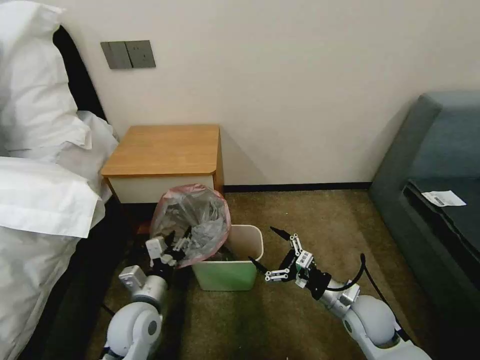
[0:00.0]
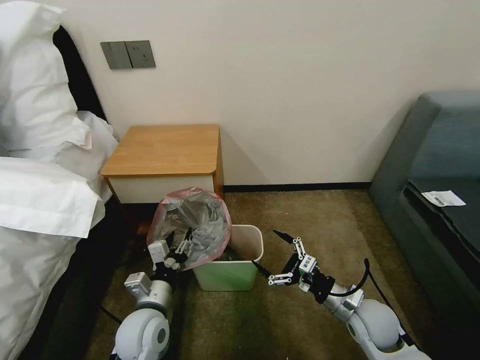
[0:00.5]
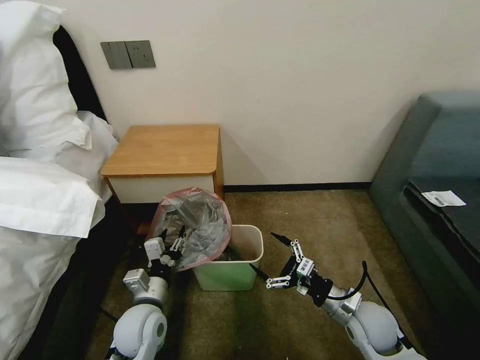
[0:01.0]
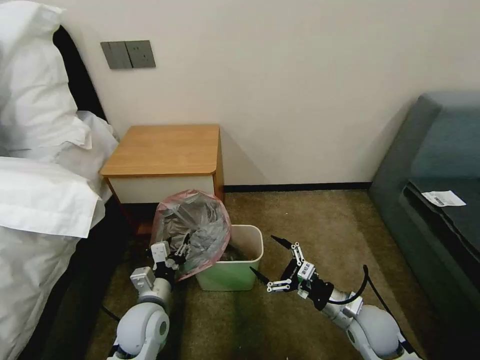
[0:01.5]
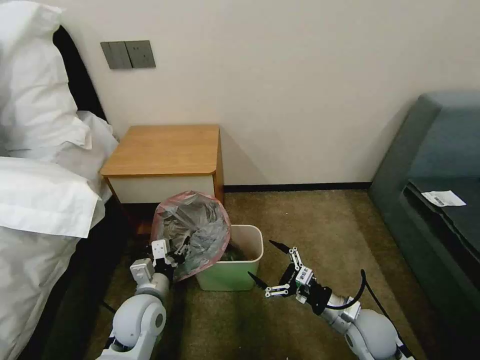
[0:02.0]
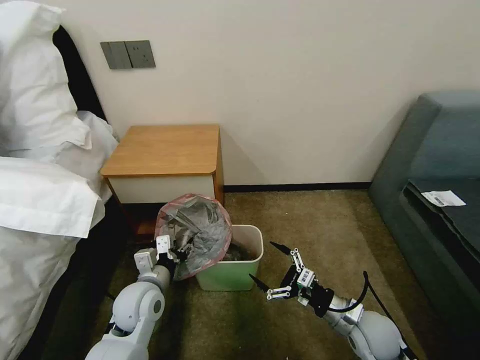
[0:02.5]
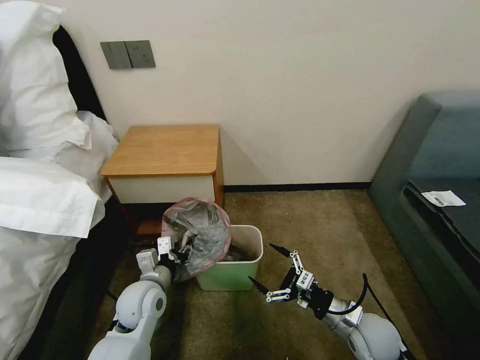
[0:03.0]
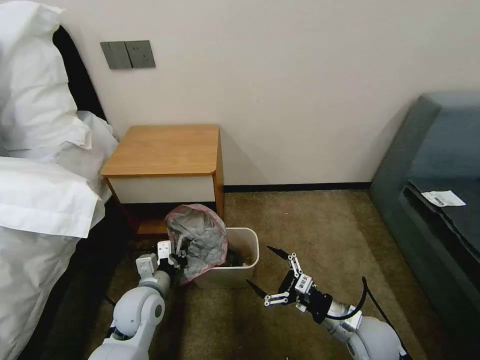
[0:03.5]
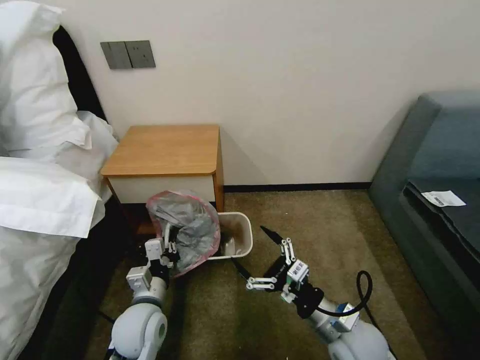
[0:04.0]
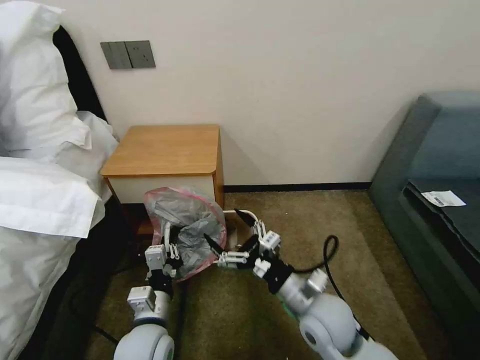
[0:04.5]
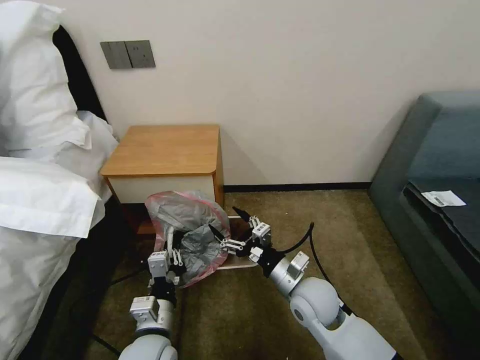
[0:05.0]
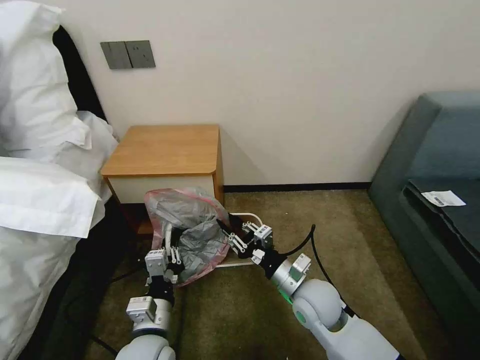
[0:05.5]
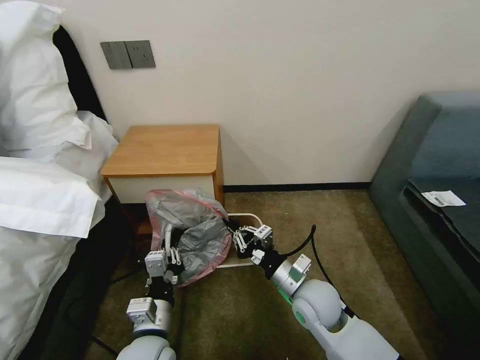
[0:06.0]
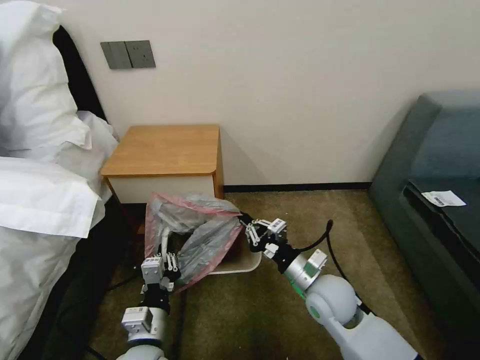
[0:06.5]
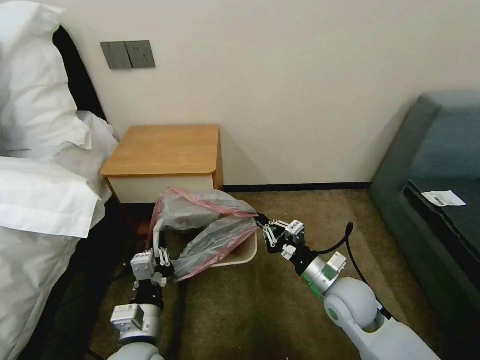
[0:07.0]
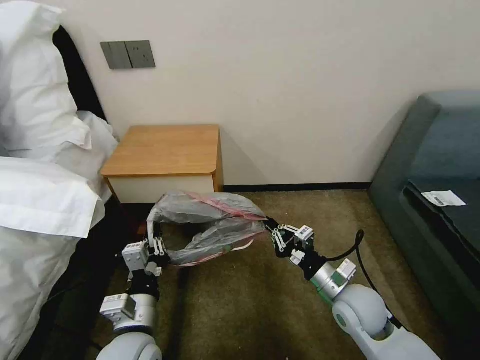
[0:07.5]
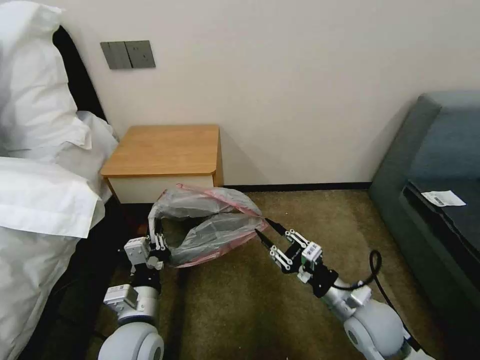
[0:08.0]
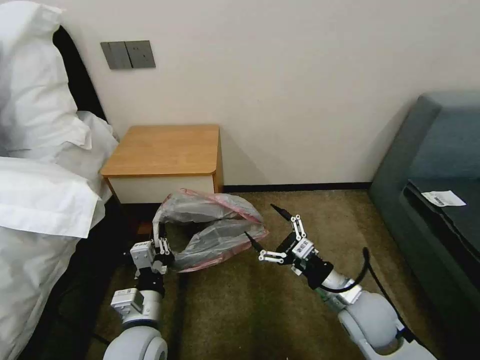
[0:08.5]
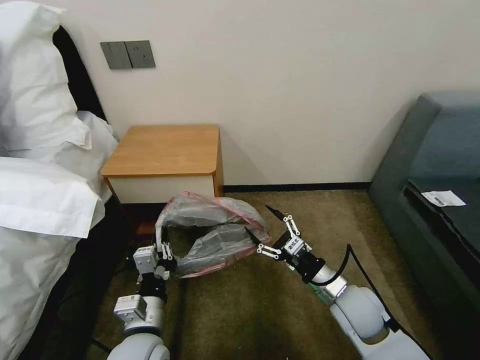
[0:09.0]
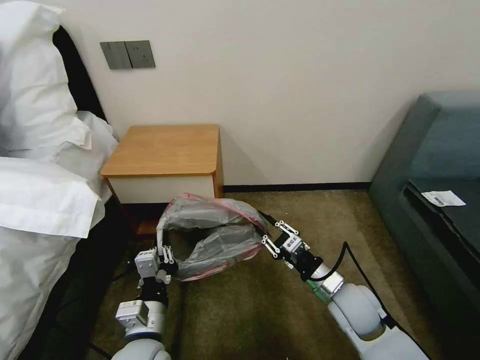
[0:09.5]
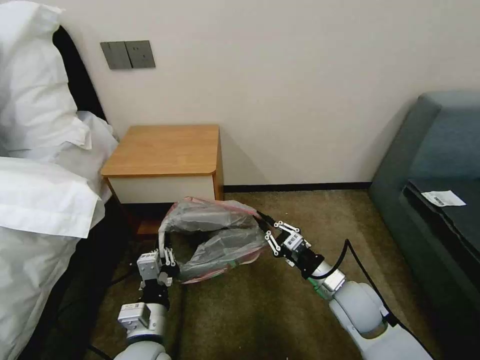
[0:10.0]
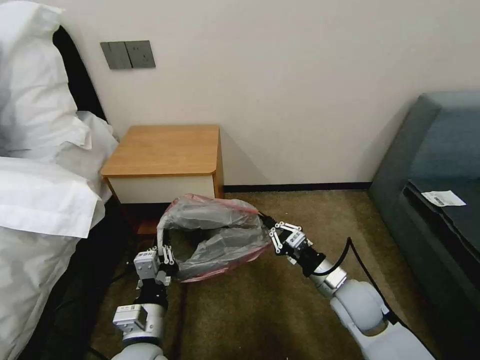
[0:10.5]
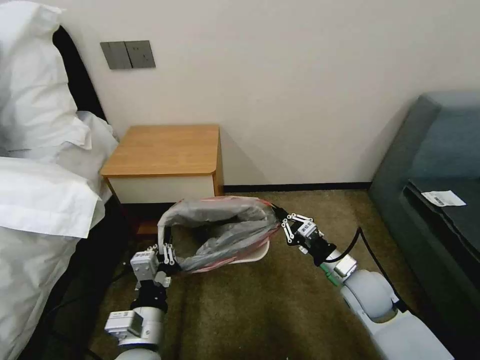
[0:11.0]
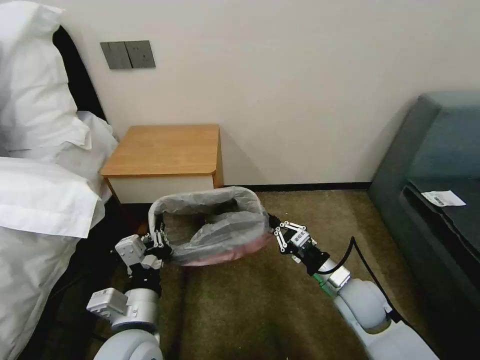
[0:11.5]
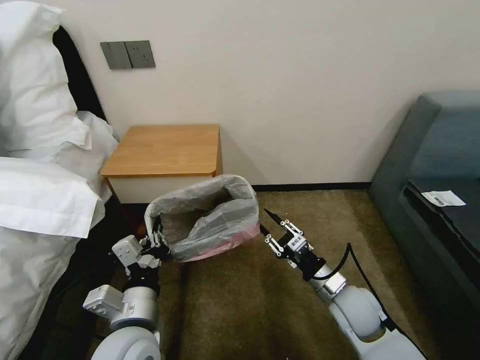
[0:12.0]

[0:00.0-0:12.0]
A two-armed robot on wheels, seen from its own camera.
Task of the whole recording: Pick up the garbage bag from the table and place it over the trash can.
0:00.0 to 0:02.0: The grippers stay close to where they were, moving slightly.
0:02.0 to 0:04.0: The right gripper heads to the left and upward, covering roughly 10 cm. Meanwhile the left gripper closes up.
0:04.0 to 0:06.0: The right gripper is displaced forward and to the left by some 10 cm, and closes; the left gripper heads backward, covering roughly 5 cm.
0:06.0 to 0:08.0: The right gripper moves to the right, some 10 cm, and opens up.
0:08.0 to 0:10.0: The right gripper opens, then closes once more.
0:10.0 to 0:12.0: The left gripper goes roughly 5 cm upward.

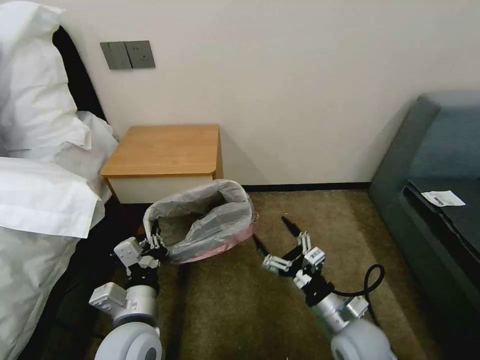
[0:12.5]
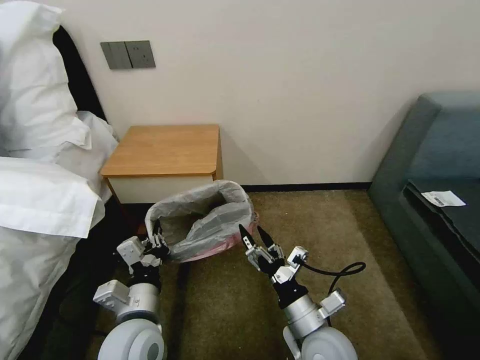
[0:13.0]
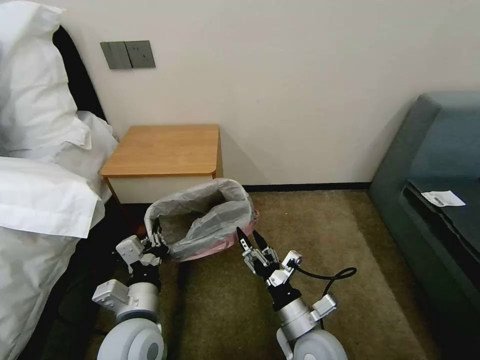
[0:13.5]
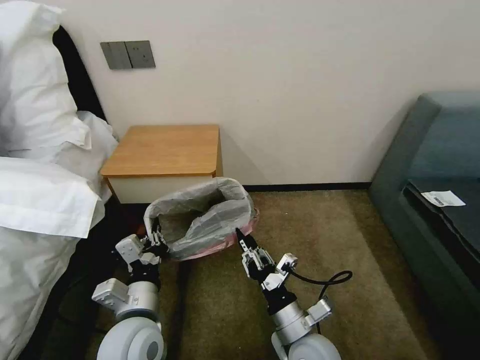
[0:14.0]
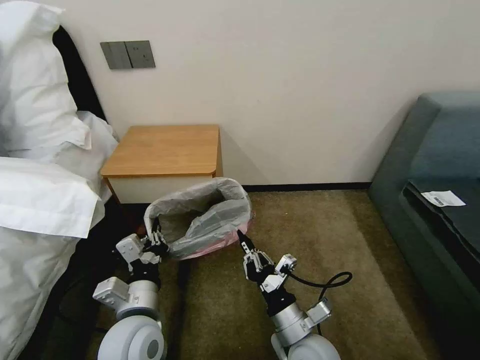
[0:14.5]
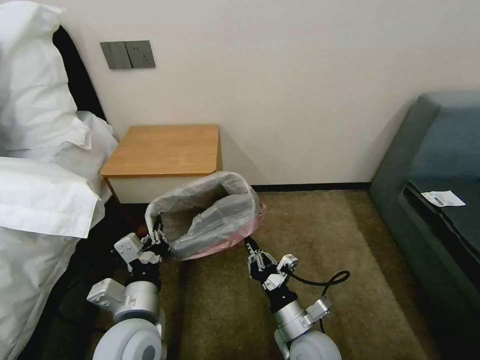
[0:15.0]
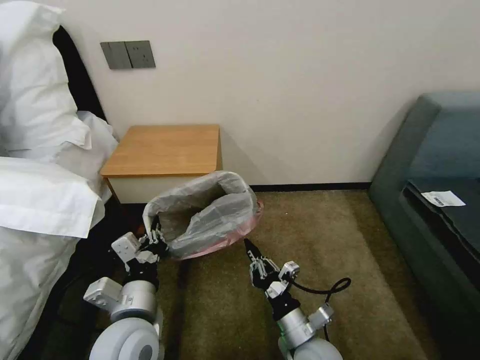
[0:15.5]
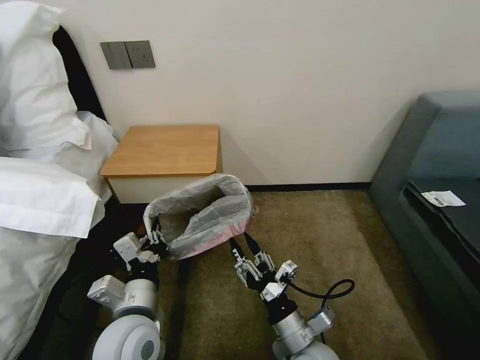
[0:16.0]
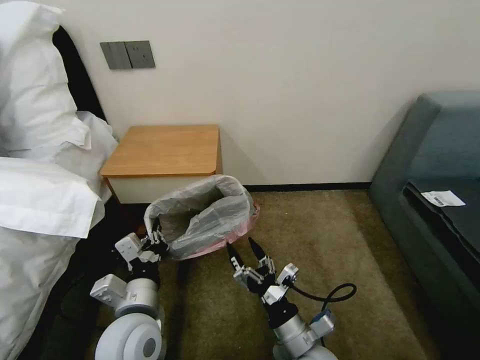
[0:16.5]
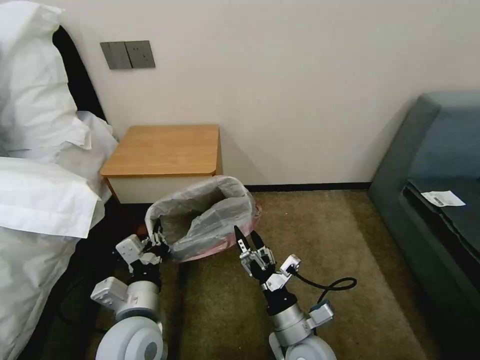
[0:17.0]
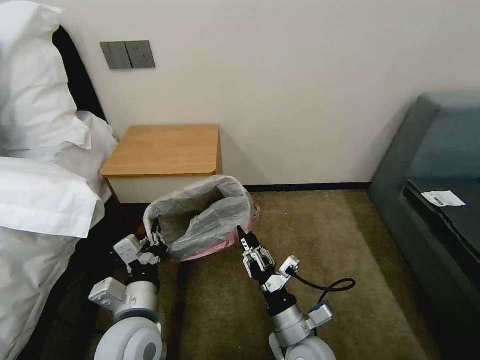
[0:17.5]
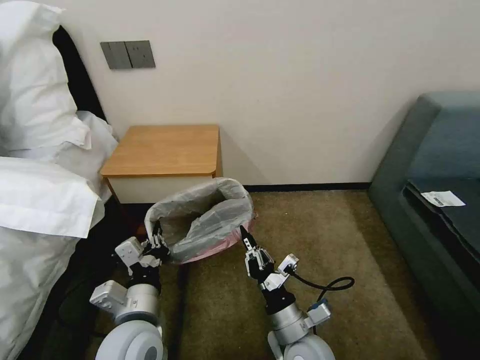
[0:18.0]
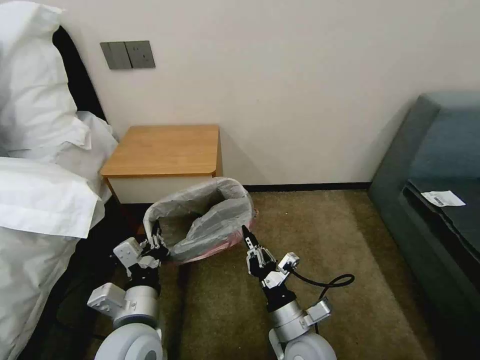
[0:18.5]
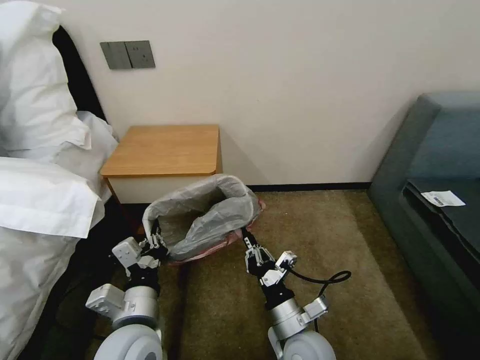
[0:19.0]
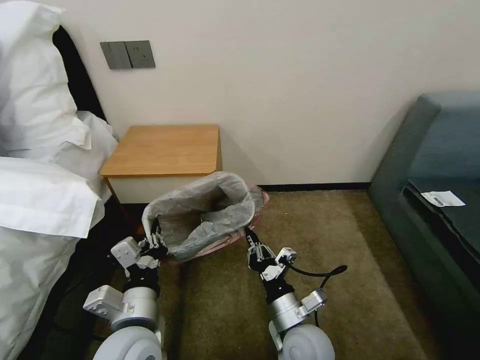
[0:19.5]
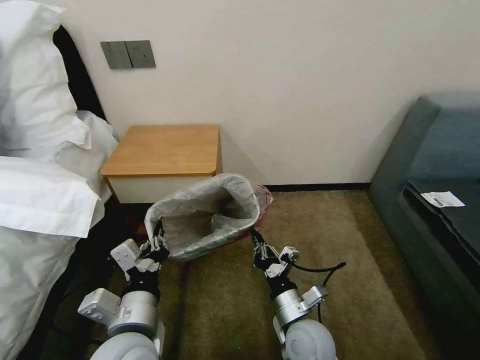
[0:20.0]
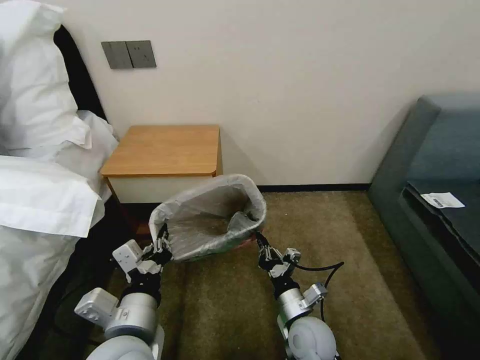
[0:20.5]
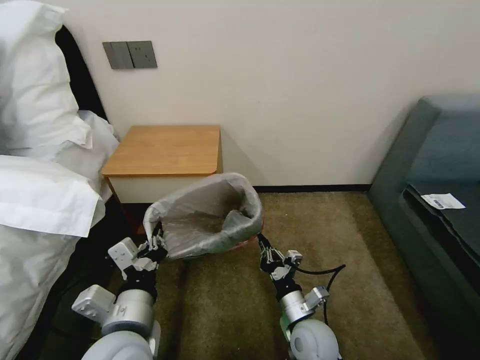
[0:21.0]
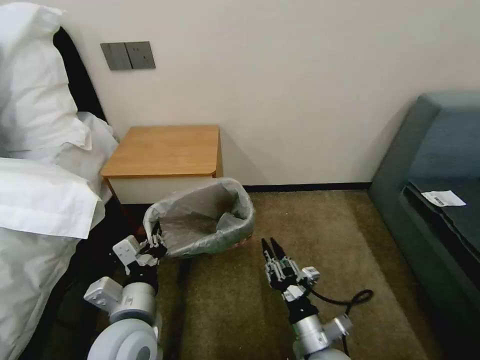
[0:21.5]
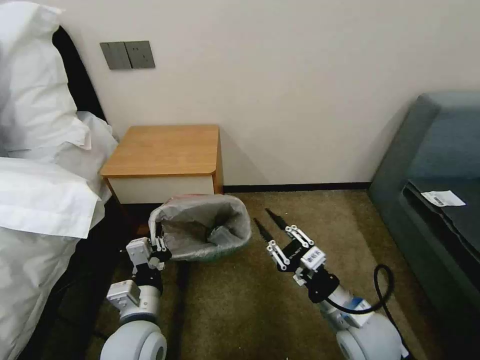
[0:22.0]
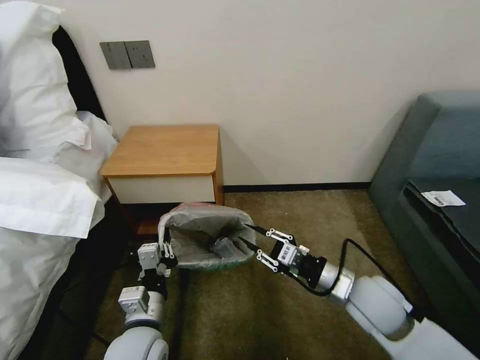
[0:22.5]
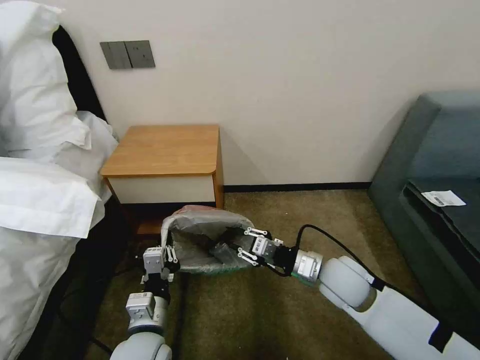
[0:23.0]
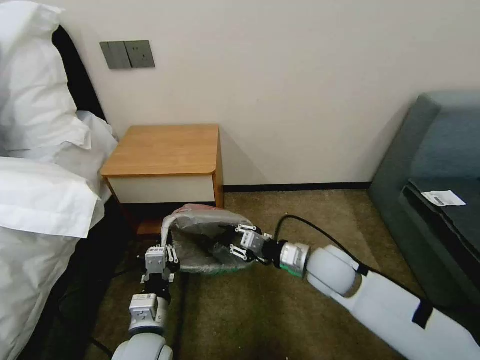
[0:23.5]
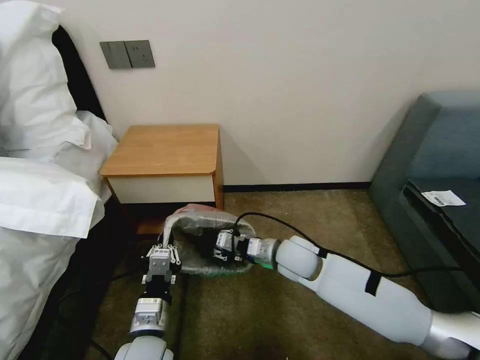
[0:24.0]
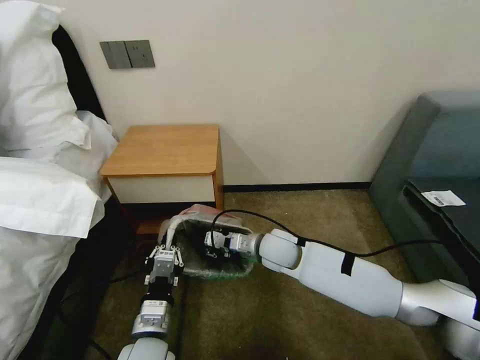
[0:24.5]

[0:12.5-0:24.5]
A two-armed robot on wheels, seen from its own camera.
Task of the whole recording: Pick up the garbage bag from the table and place it over the trash can.
0:12.5 to 0:14.5: The right gripper travels to the left by approximately 10 cm, and closes its fingers.
0:14.5 to 0:16.5: The right gripper opens.
0:16.5 to 0:18.5: The right gripper closes.
0:18.5 to 0:20.5: The right gripper changes place by roughly 5 cm.
0:20.5 to 0:22.5: The right gripper shifts some 15 cm upward and to the right; the left gripper is displaced downward by some 10 cm.
0:22.5 to 0:24.5: The right gripper is displaced to the left and forward by approximately 20 cm.

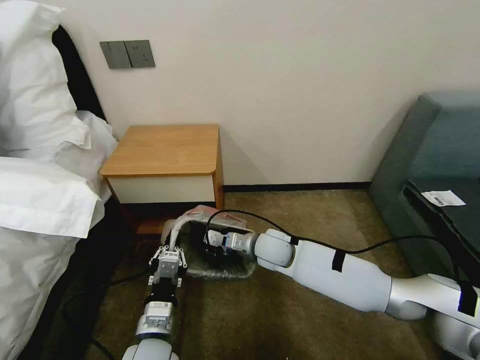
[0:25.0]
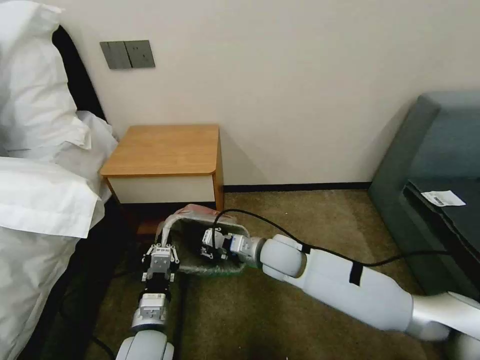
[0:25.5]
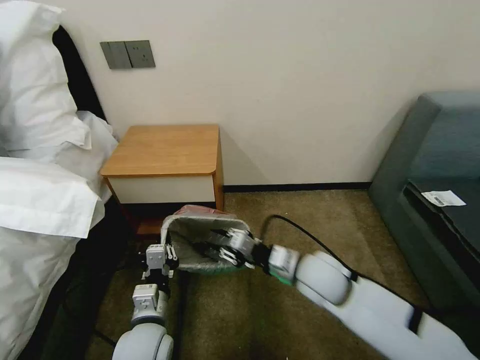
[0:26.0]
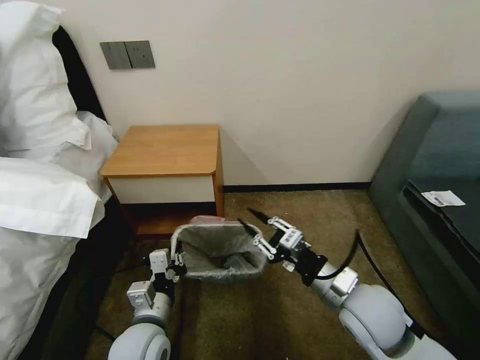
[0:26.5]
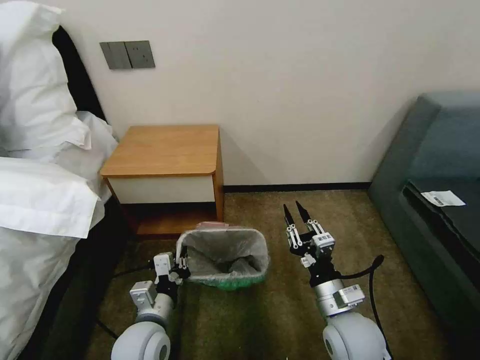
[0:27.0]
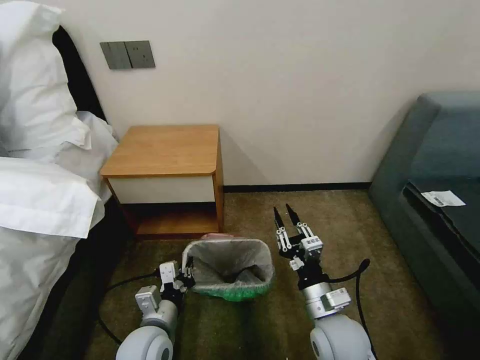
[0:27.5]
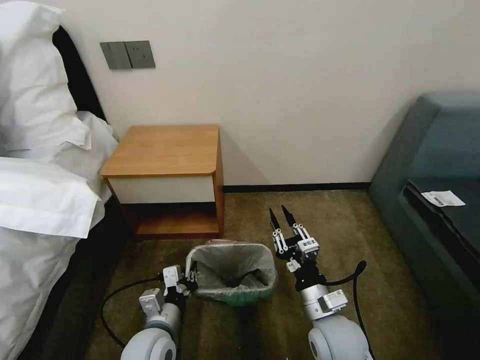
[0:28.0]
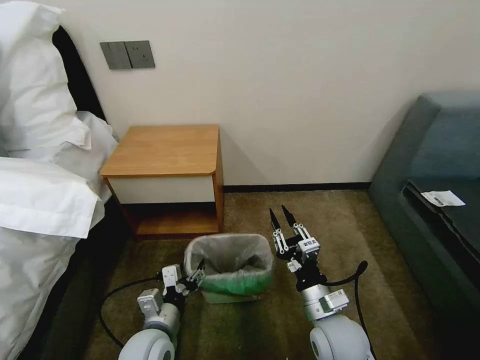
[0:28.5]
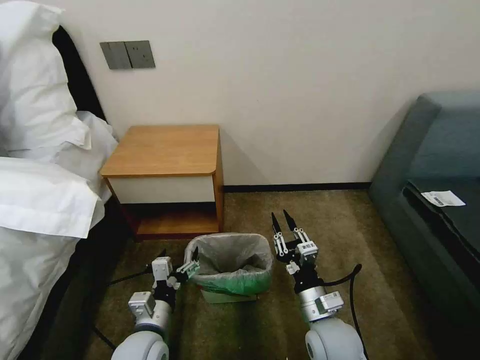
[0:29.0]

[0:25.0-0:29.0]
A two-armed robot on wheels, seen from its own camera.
Task of the whole recording: Pick up the garbage bag from the table and place it over the trash can.
0:25.0 to 0:27.0: The right gripper shifts about 25 cm backward and to the right.
0:27.0 to 0:29.0: The left gripper opens its fingers.
